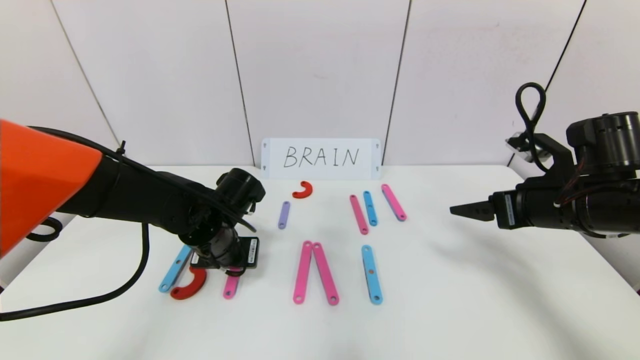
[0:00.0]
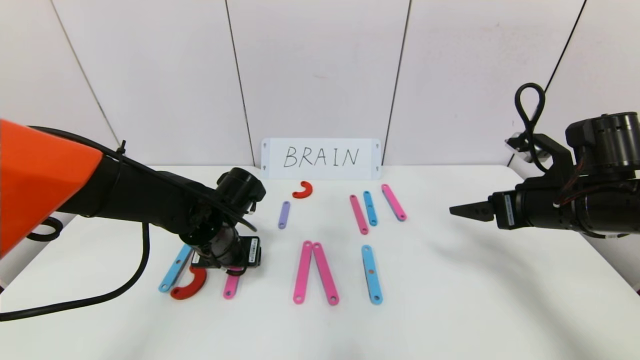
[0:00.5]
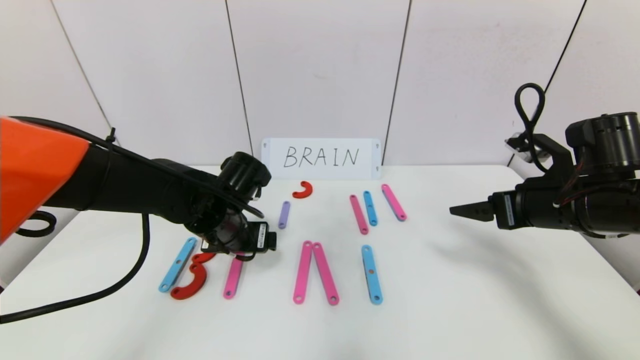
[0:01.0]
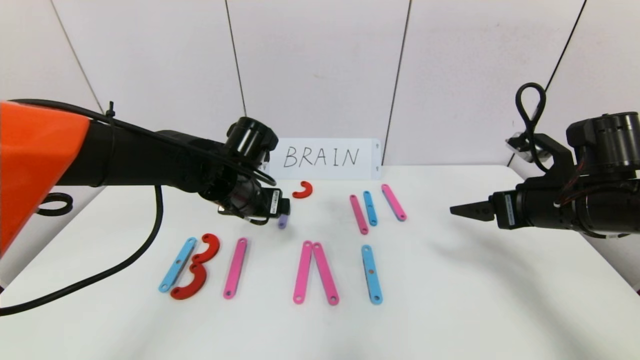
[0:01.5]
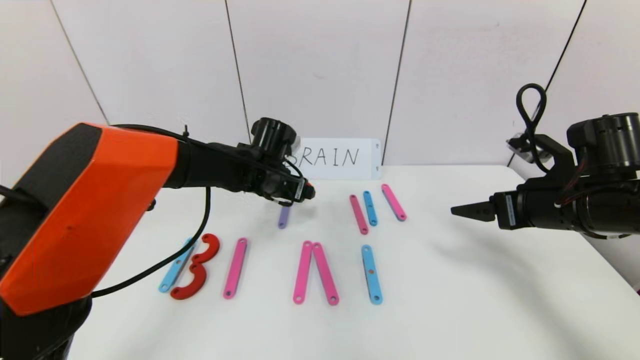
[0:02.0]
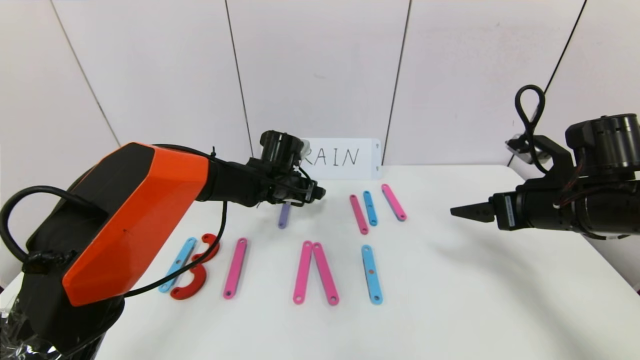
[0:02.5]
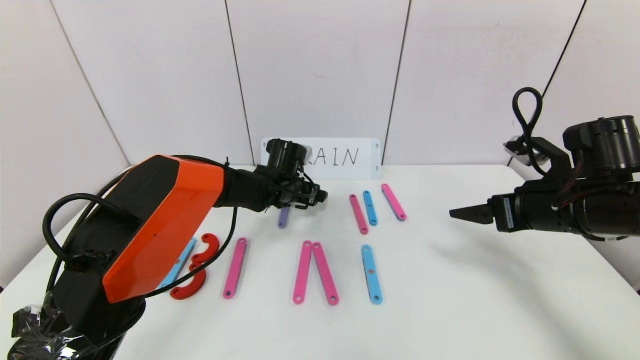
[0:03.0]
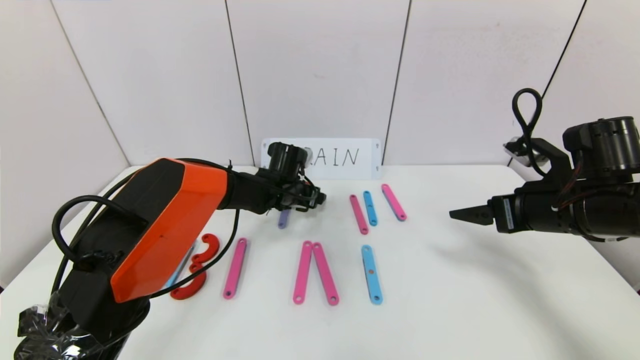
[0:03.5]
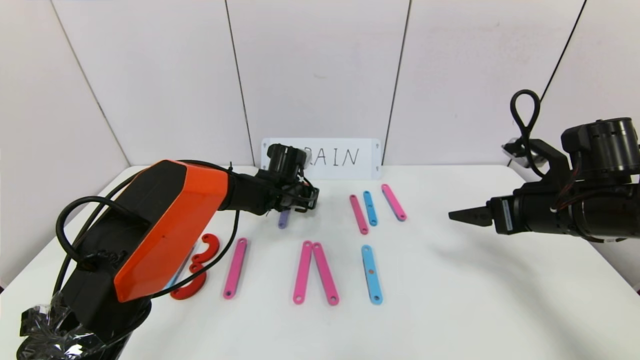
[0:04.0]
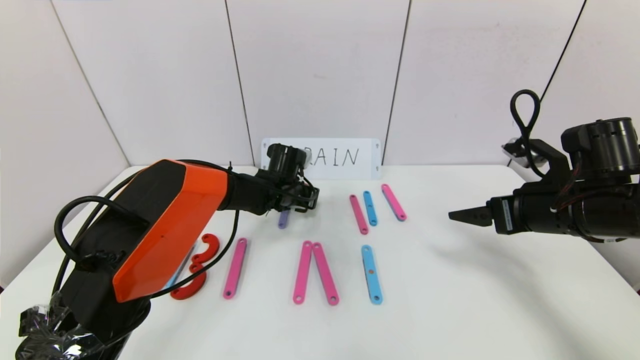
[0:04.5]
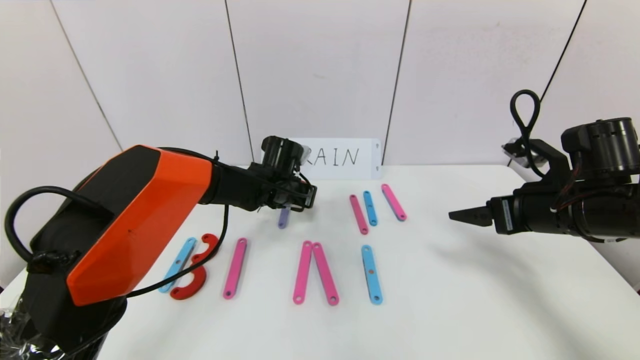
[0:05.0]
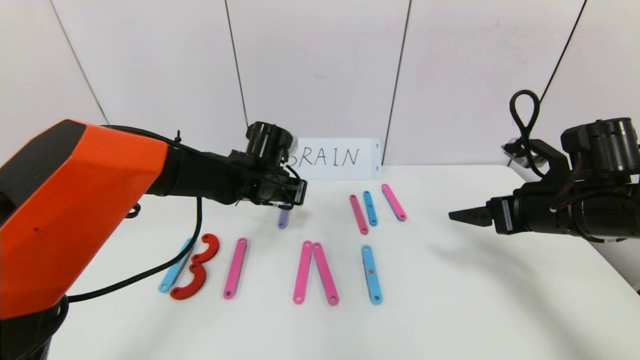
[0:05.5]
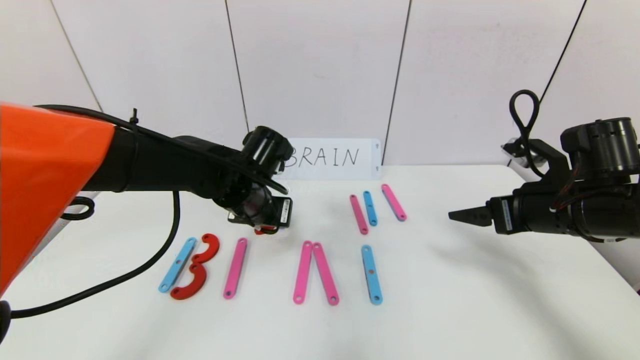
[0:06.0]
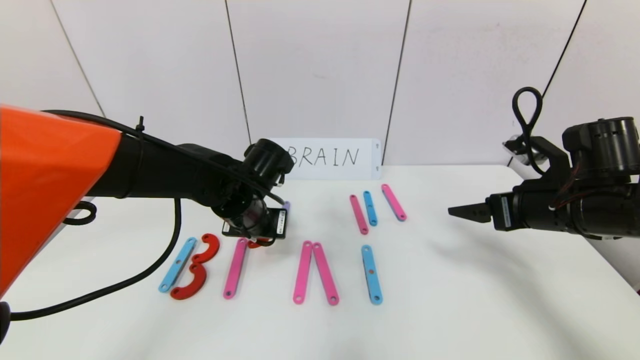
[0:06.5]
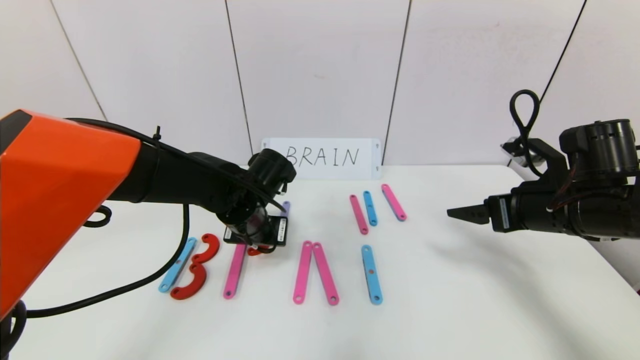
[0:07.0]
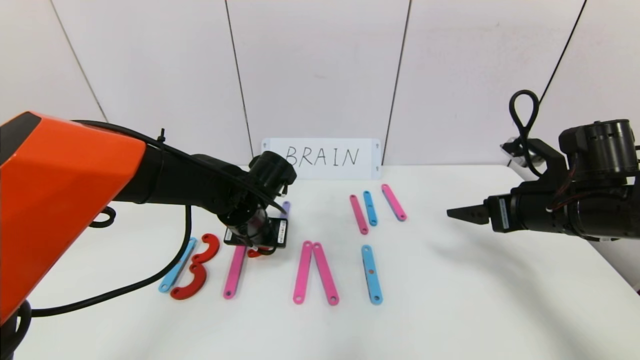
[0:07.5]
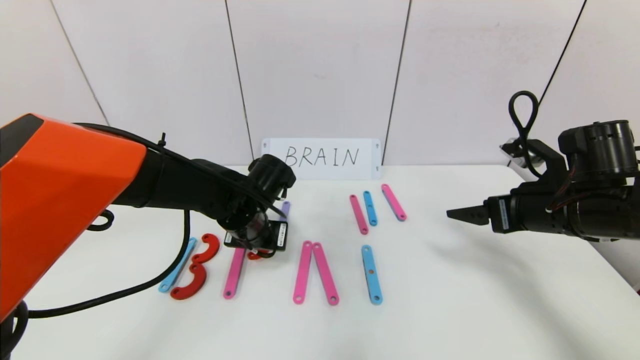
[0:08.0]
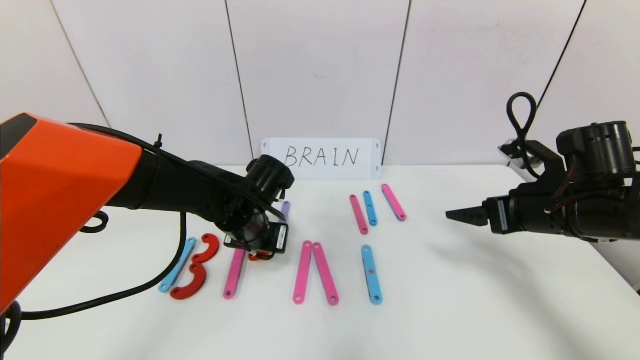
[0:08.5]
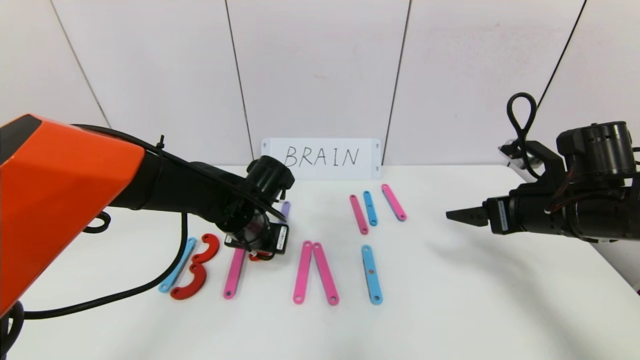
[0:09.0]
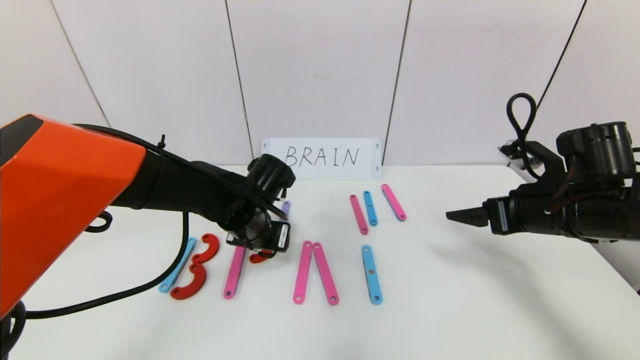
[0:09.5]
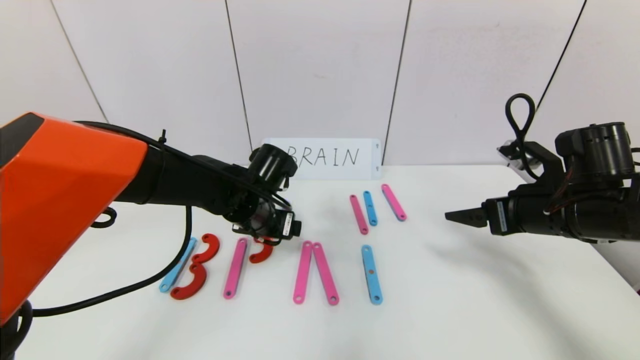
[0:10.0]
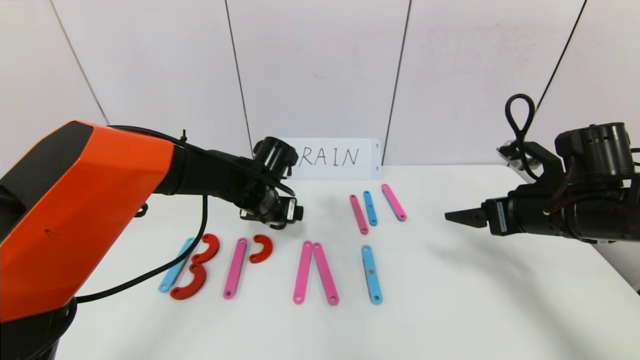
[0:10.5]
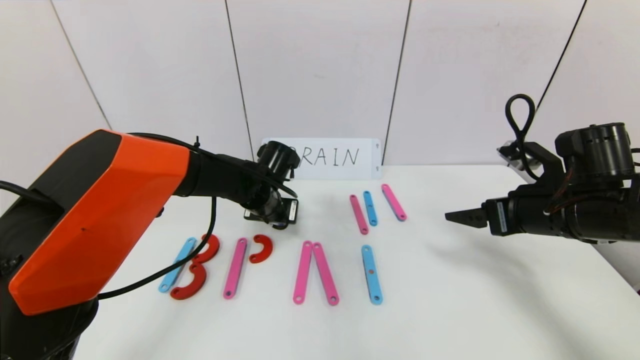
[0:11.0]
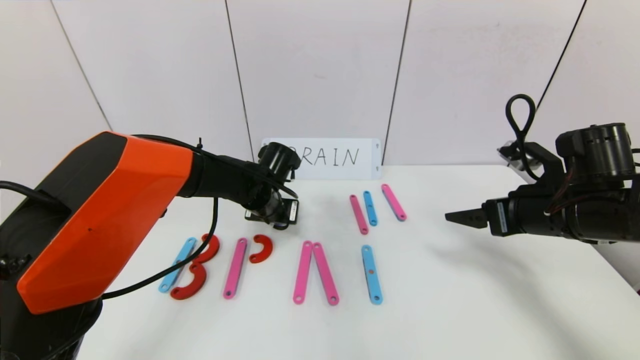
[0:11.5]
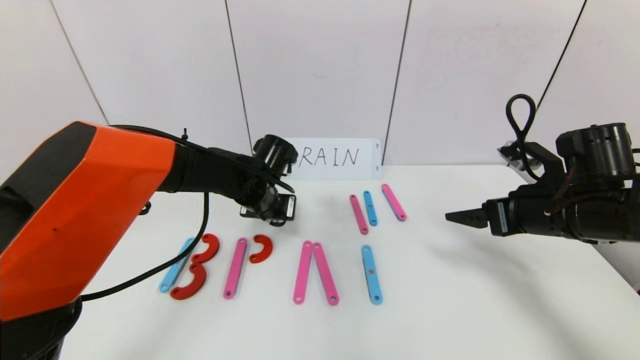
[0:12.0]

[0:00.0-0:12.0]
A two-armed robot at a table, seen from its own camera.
Task of the whole recording: rearrange the word baai as brain.
0.0 to 2.0 s: The left gripper heads forward and to the right, covering some 10 cm, and opens its fingers.
2.0 to 4.0 s: The left gripper moves downward and forward, about 10 cm, and closes.
4.0 to 6.0 s: The left gripper is displaced backward and upward by about 15 cm.
6.0 to 8.0 s: The grippers stay close to where they were, moving slightly.
8.0 to 10.0 s: The left gripper opens its fingers.
10.0 to 12.0 s: The left gripper closes.

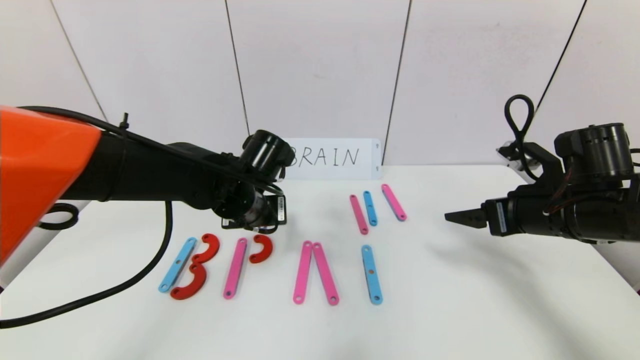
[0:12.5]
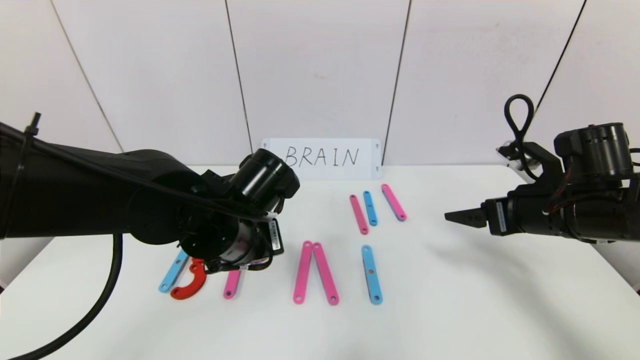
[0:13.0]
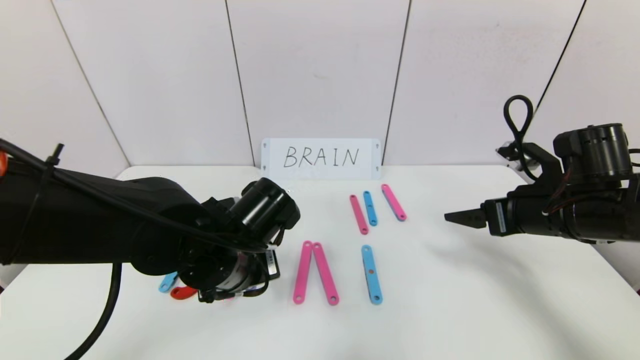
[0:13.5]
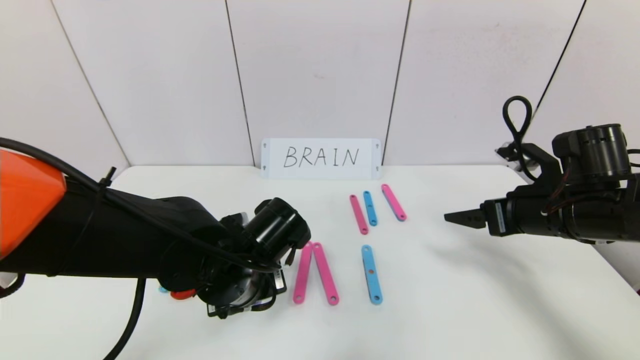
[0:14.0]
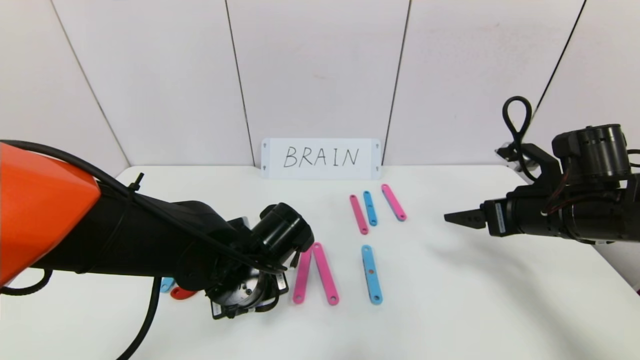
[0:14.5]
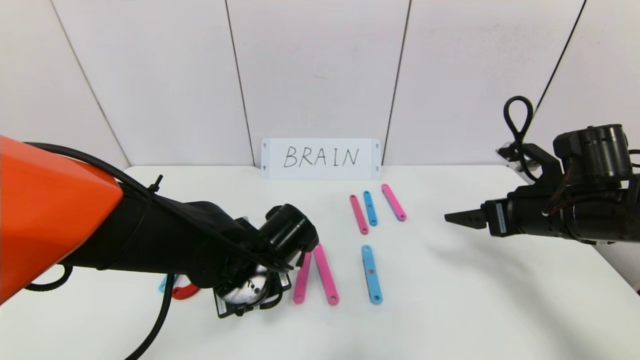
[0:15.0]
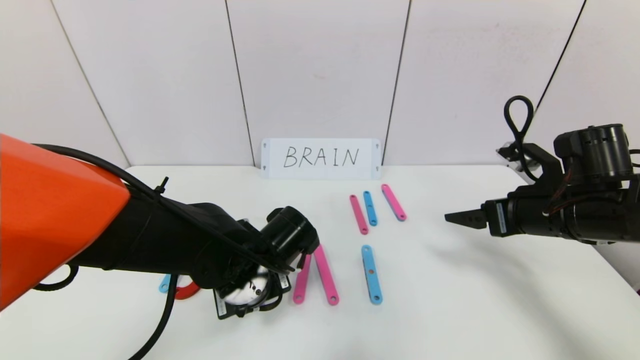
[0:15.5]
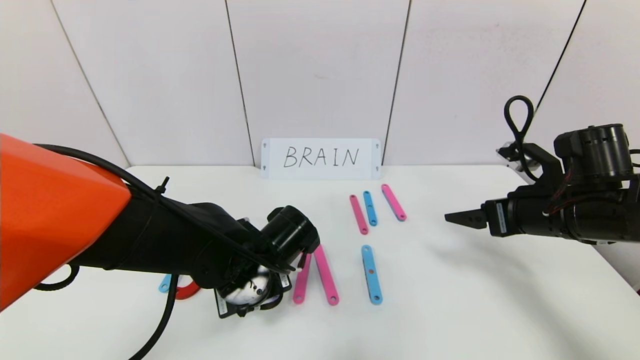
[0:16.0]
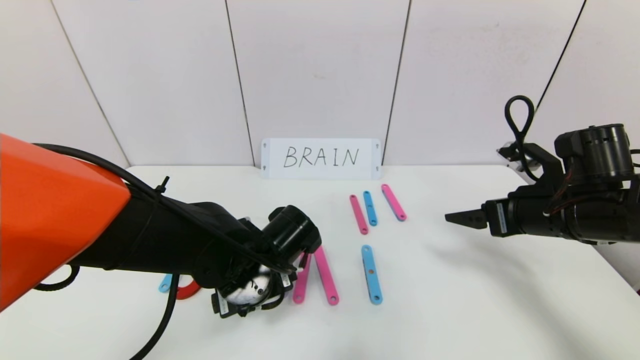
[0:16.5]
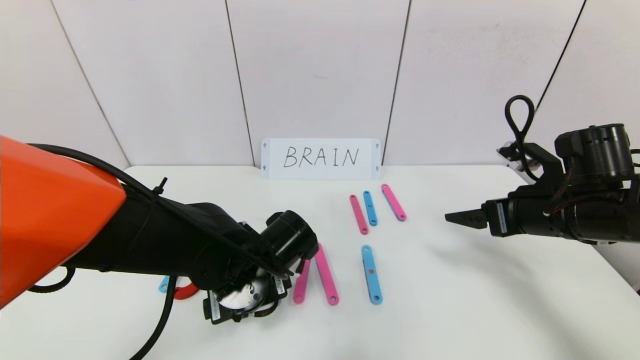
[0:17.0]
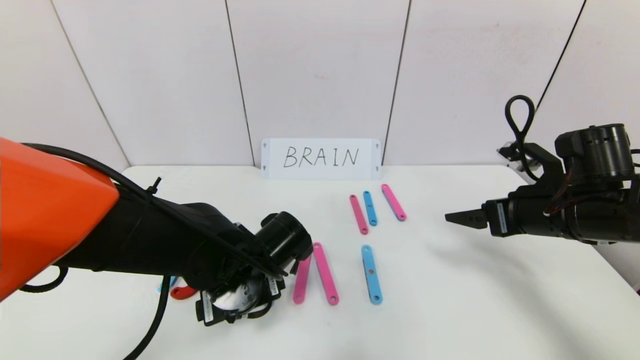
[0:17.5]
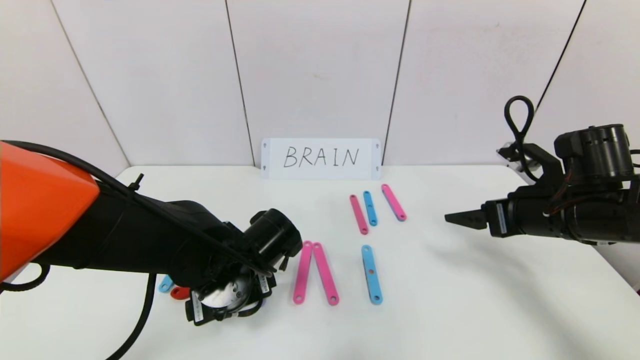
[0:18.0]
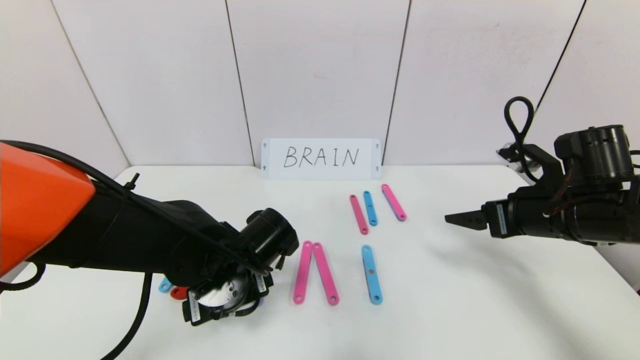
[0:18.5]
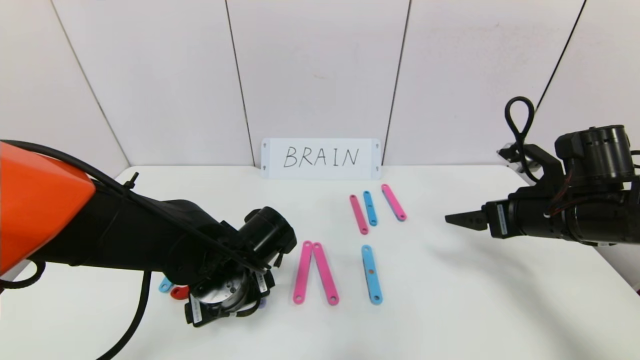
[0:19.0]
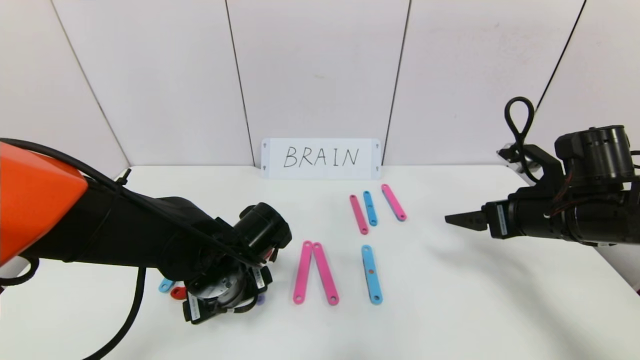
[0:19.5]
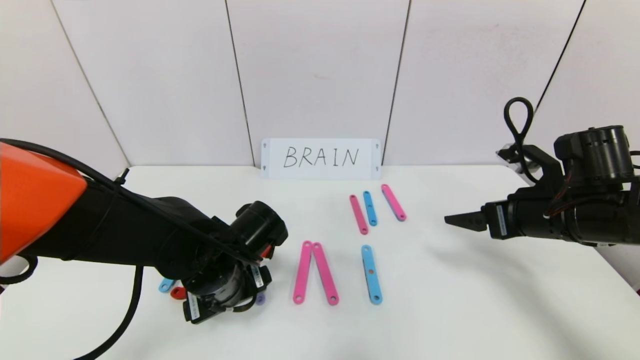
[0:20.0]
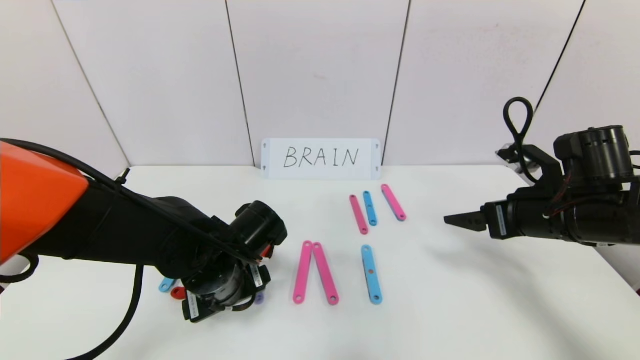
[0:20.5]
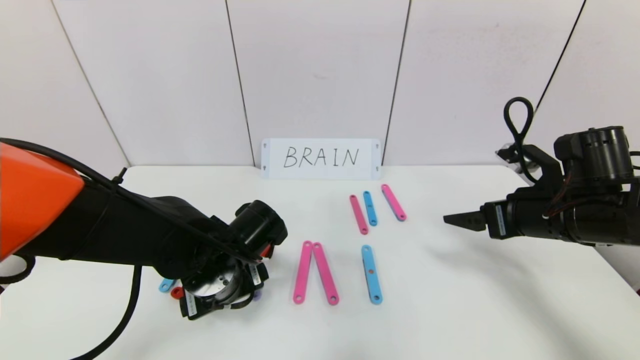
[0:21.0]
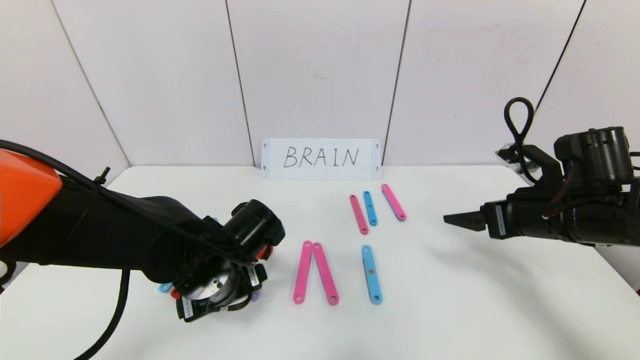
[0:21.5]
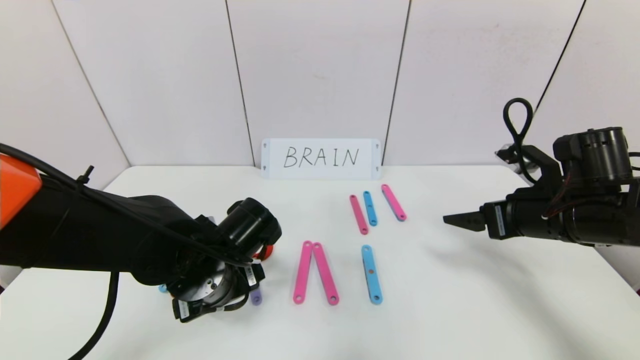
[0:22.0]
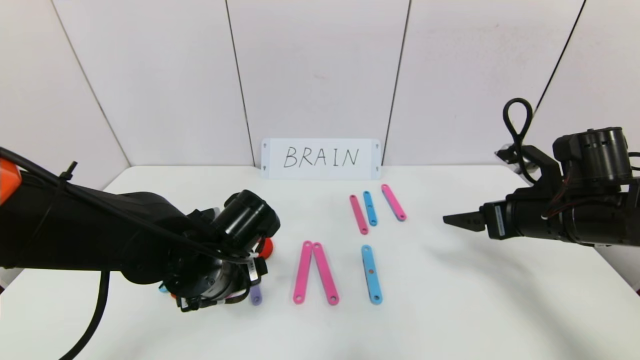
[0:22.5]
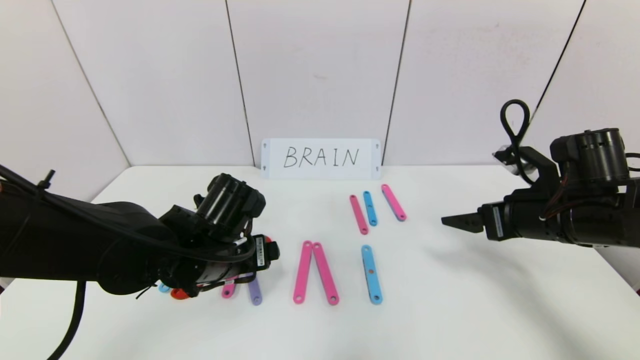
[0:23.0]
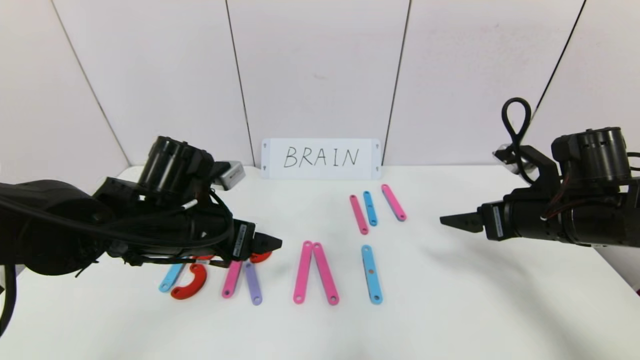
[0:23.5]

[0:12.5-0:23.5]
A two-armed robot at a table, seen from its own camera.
Task of the whole recording: rearrange the word baai as brain.
Step, 12.5 to 22.0 s: Place the character R between first character B and third character A.
12.5 to 14.5 s: The left gripper heads backward and downward, covering roughly 10 cm.
14.5 to 16.0 s: The left gripper opens up.
16.0 to 20.0 s: The grippers make only small movements.
20.0 to 21.5 s: The two grippers keep their place.
21.5 to 23.5 s: The left gripper shifts about 5 cm upward.
